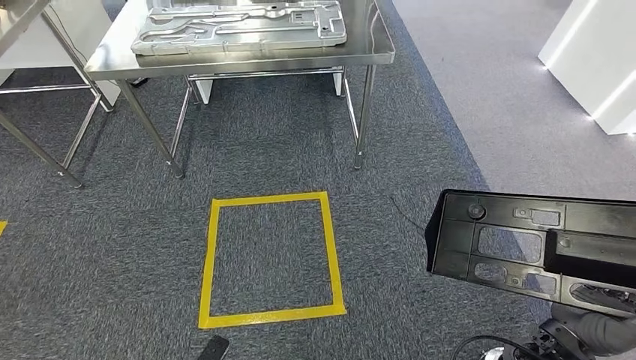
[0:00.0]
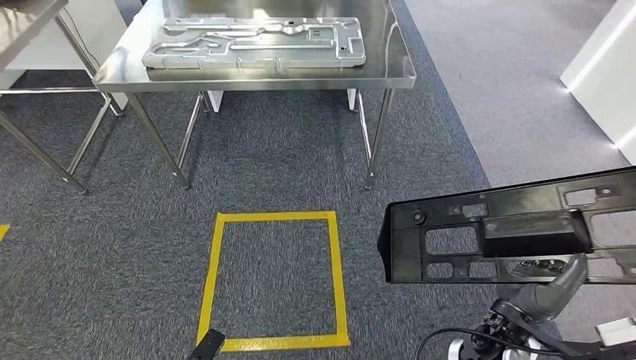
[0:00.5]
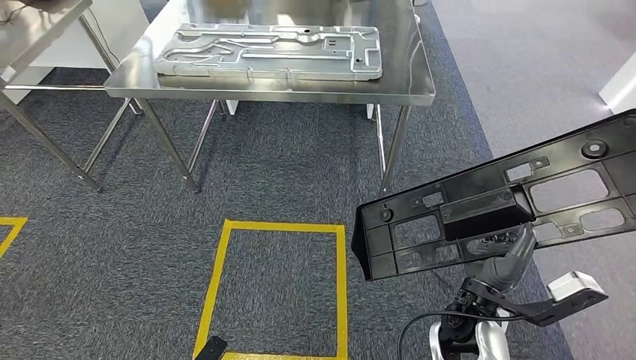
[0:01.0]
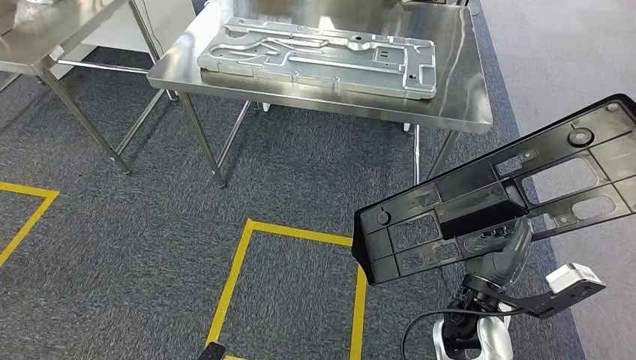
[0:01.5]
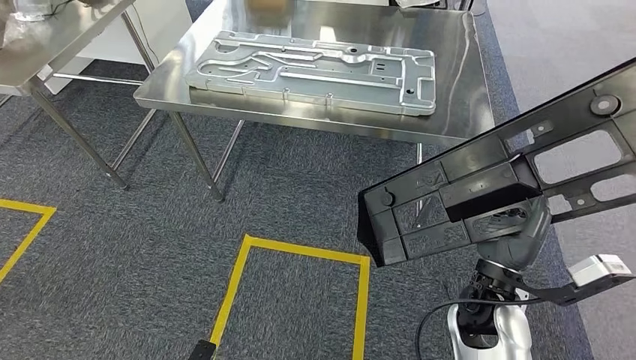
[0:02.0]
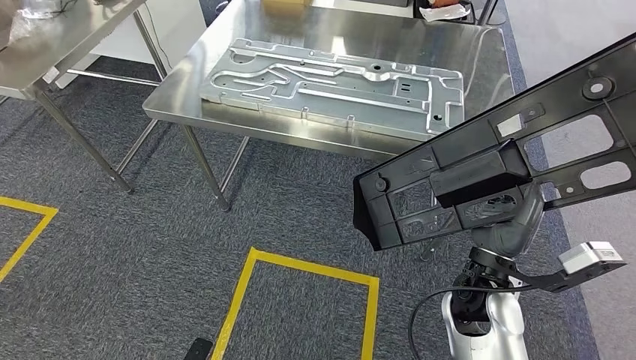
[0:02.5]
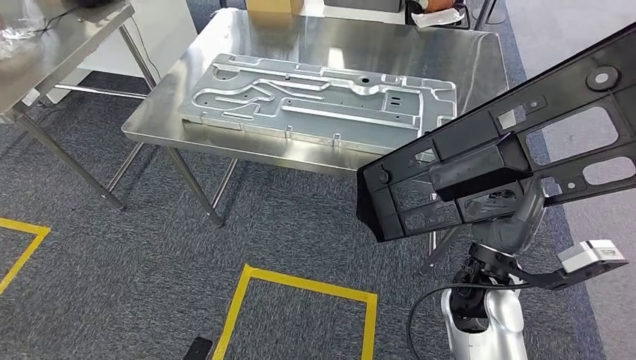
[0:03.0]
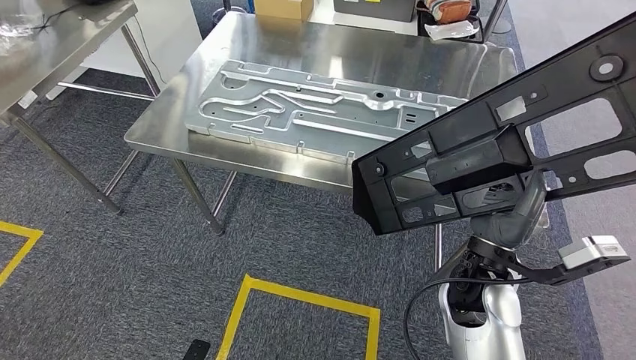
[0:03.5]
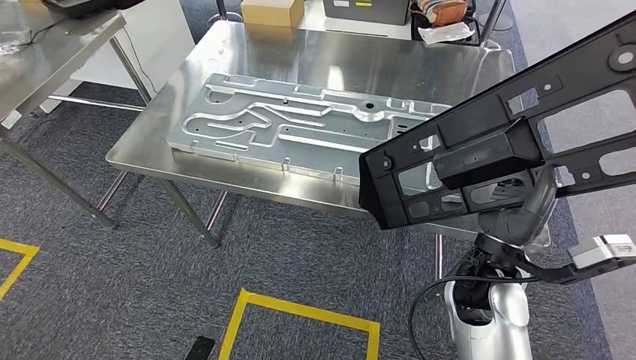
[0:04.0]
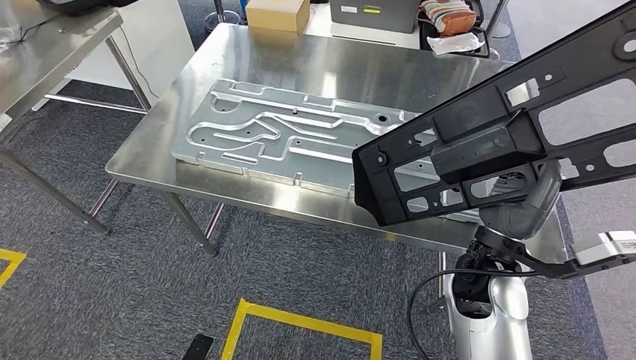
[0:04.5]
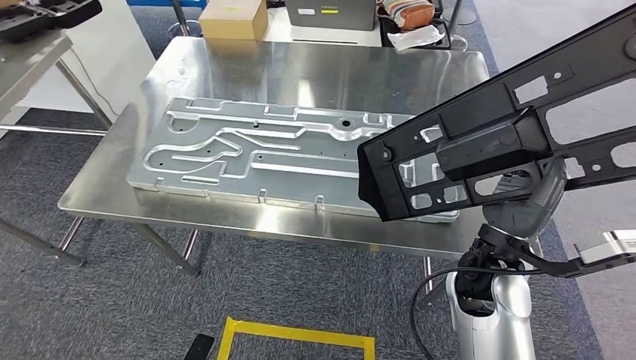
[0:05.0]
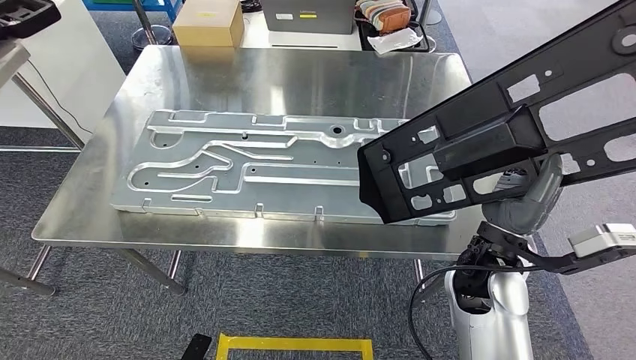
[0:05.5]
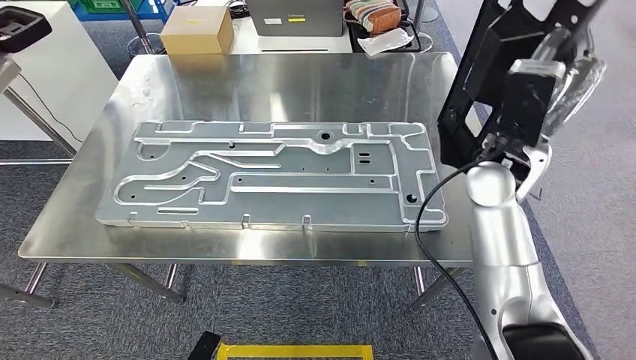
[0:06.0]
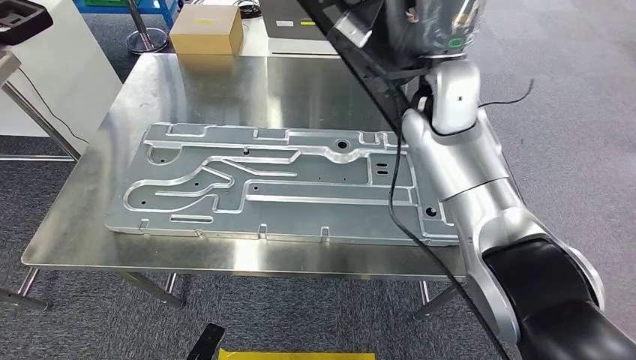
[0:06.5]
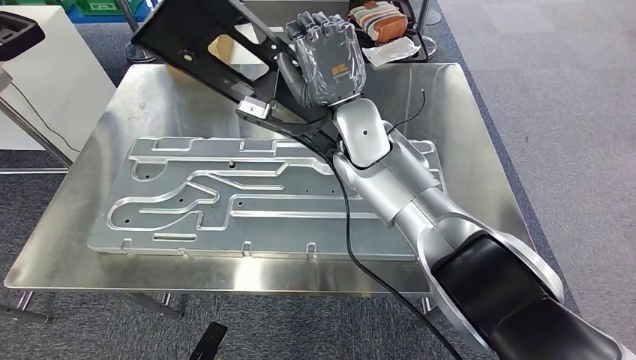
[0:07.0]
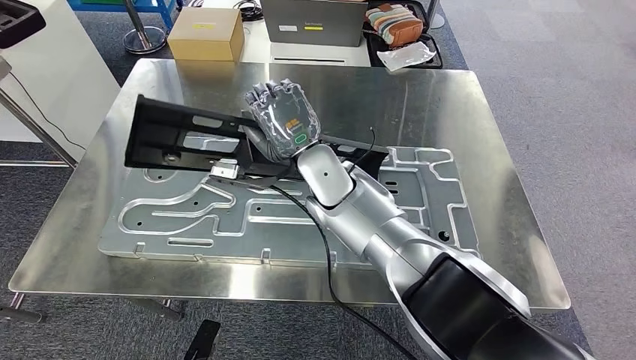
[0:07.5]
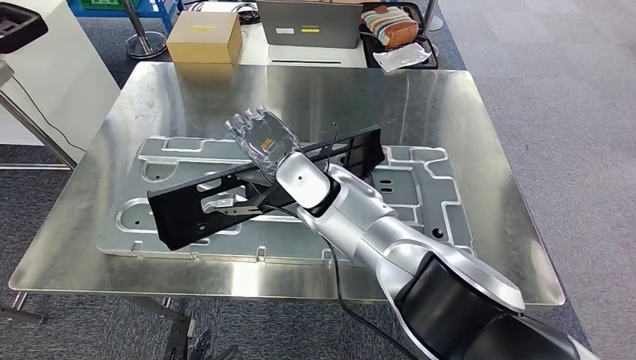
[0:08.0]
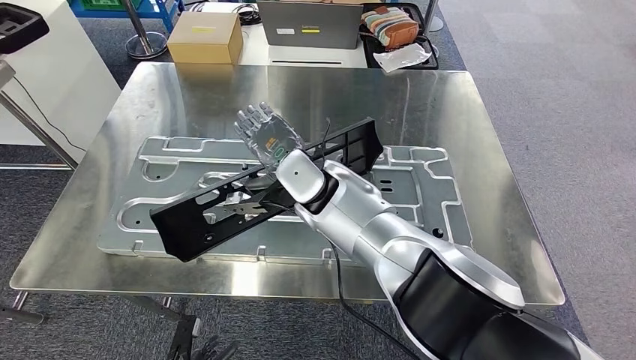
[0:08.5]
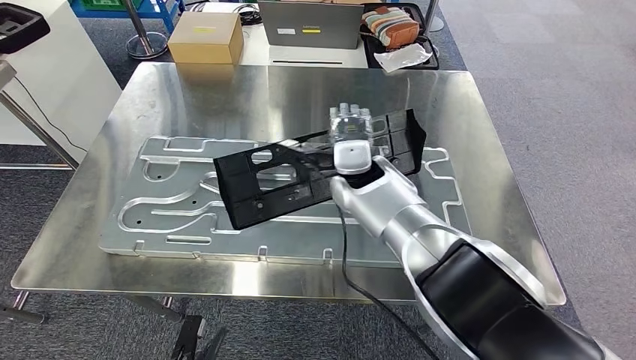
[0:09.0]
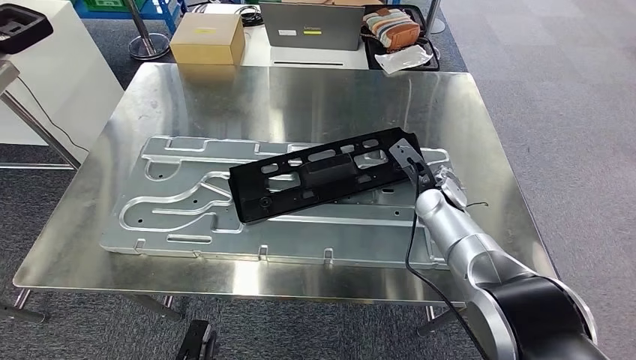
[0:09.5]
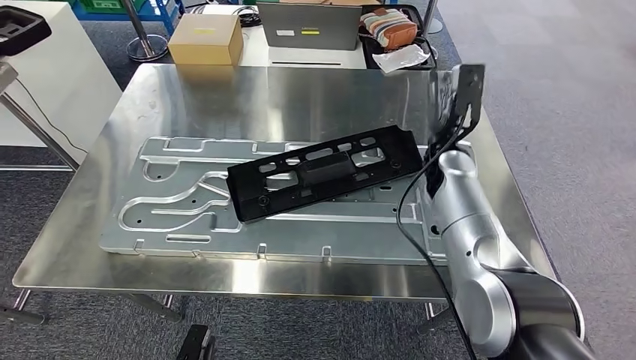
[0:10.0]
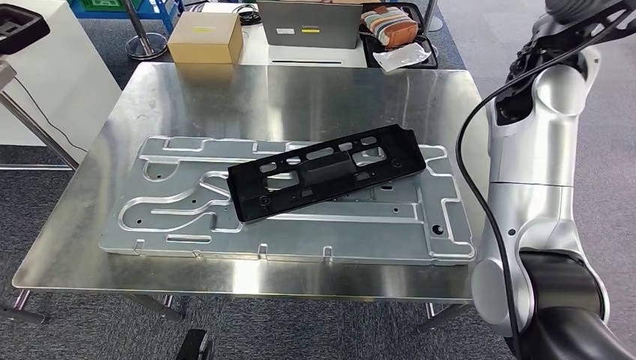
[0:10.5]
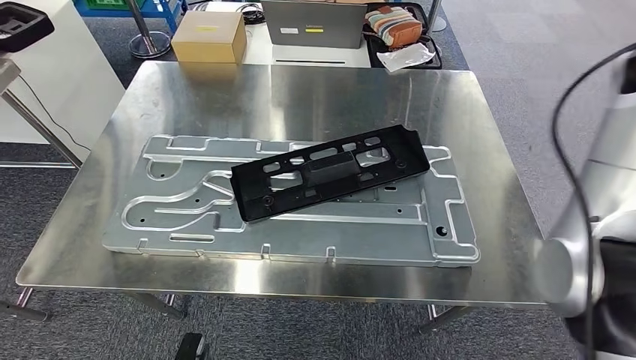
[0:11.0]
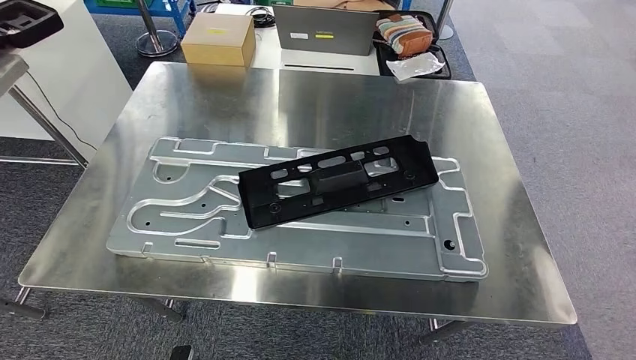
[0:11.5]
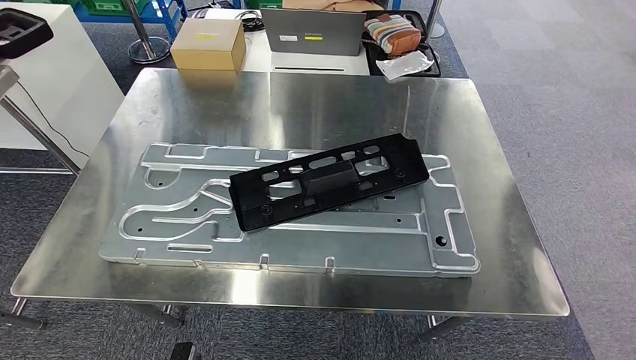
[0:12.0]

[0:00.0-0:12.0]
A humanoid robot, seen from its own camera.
Step, 0:00.0 to 0:04.0: Move the large material to the workbench.

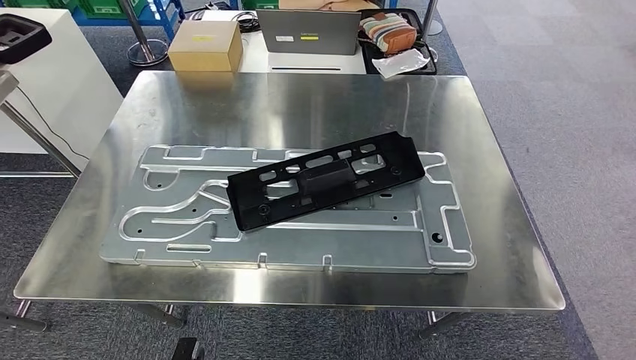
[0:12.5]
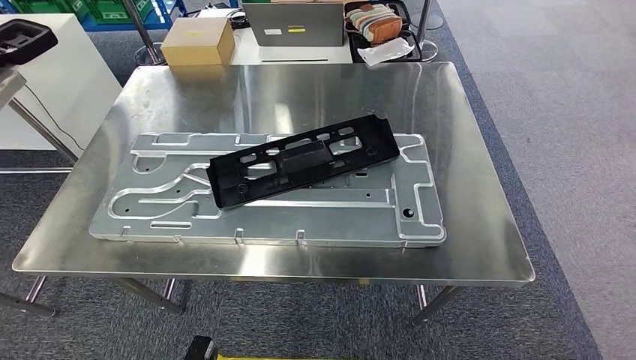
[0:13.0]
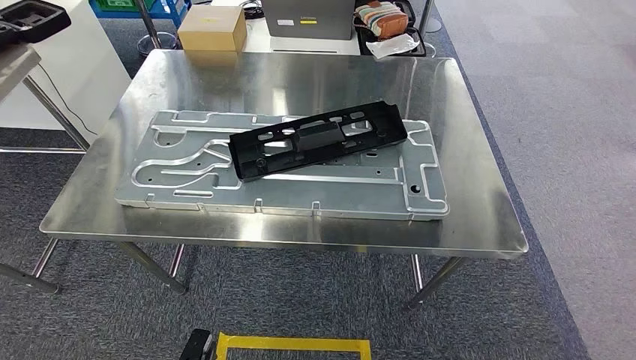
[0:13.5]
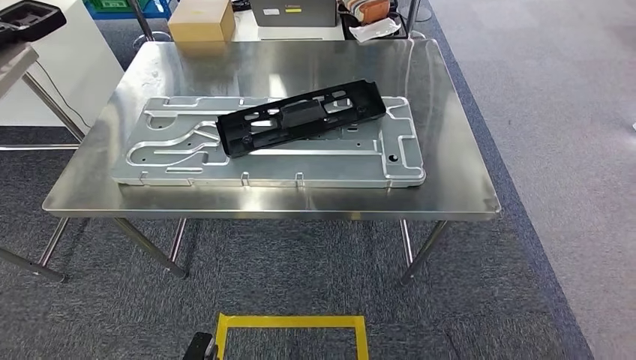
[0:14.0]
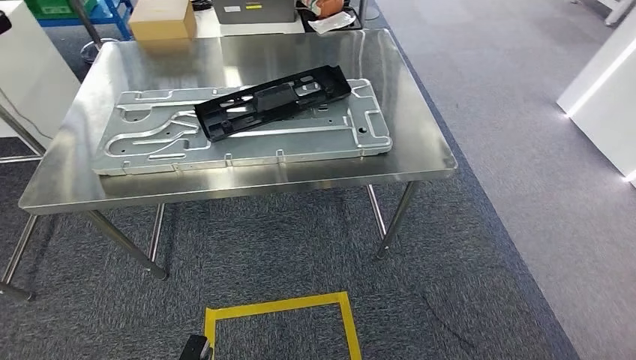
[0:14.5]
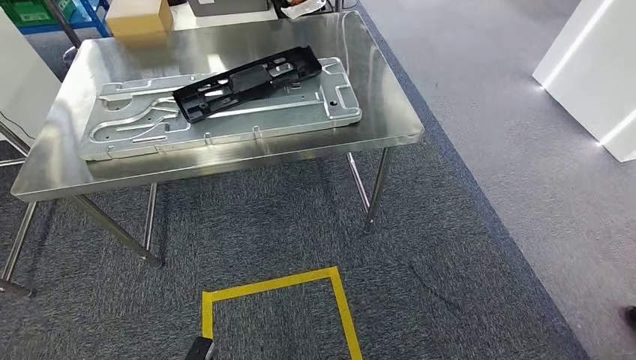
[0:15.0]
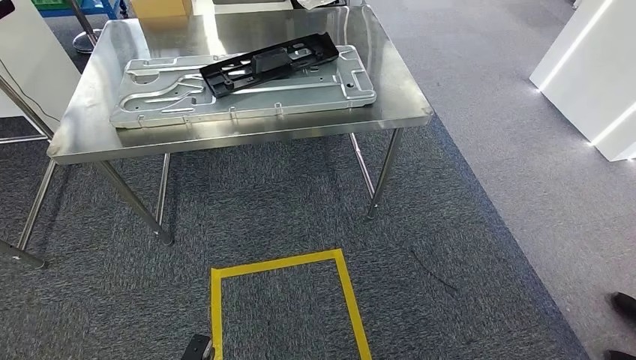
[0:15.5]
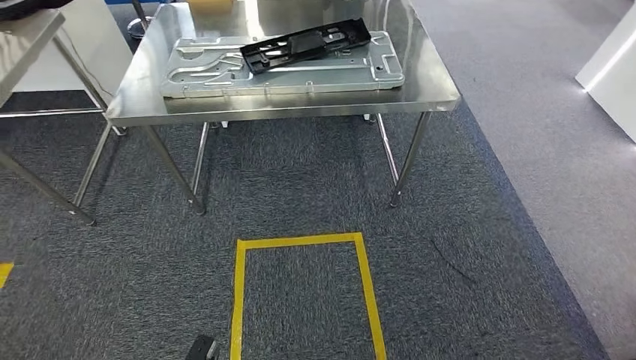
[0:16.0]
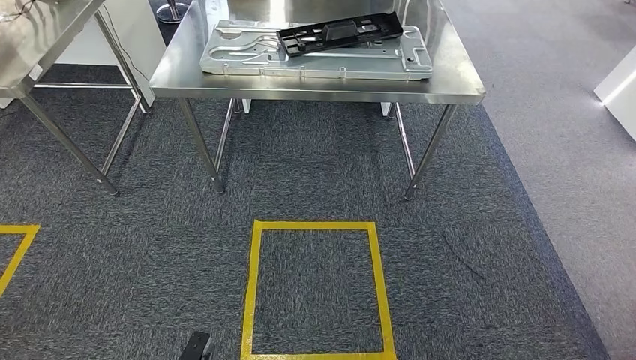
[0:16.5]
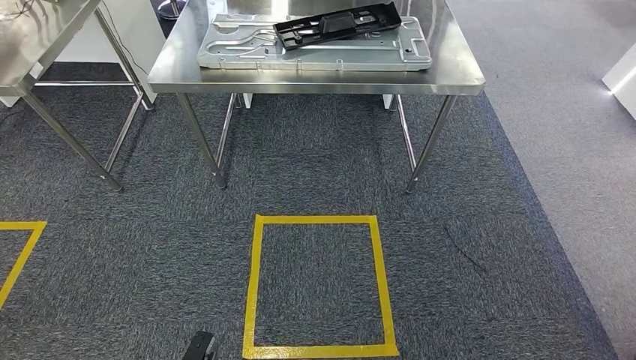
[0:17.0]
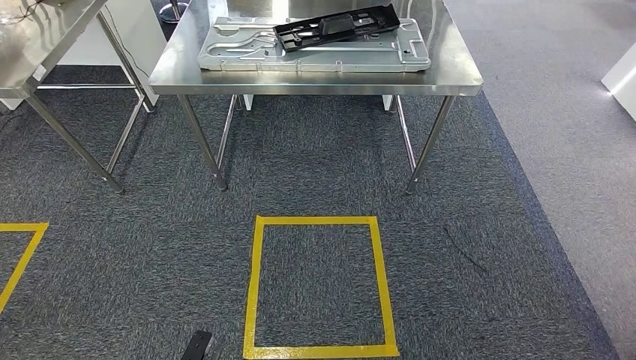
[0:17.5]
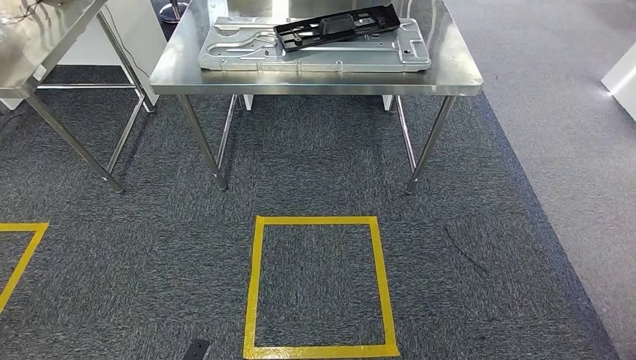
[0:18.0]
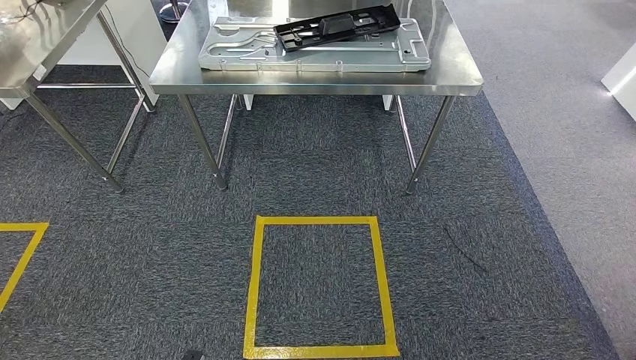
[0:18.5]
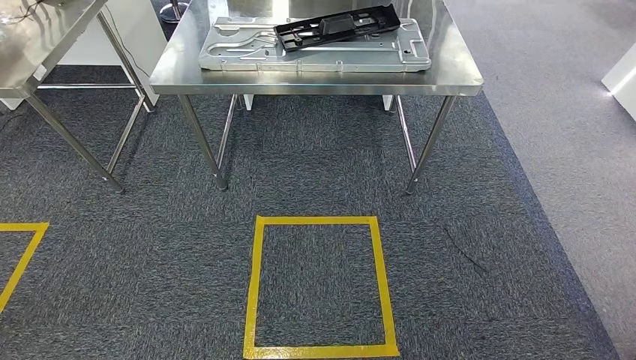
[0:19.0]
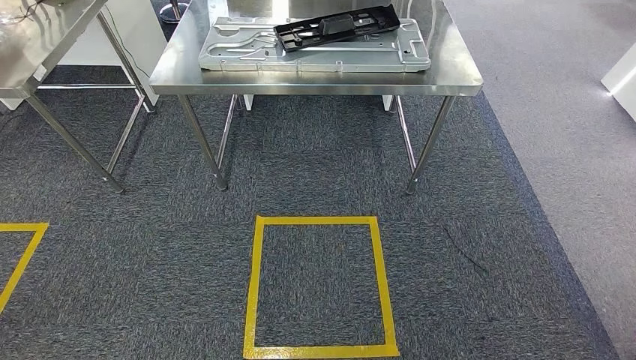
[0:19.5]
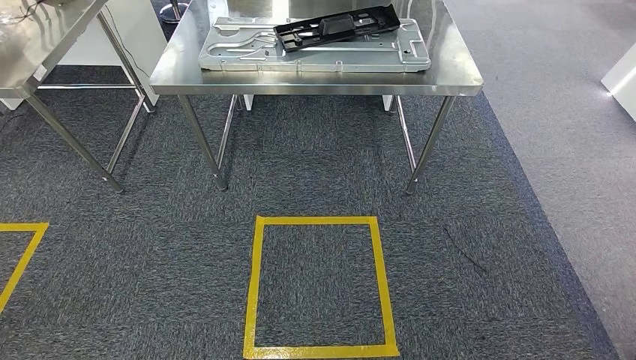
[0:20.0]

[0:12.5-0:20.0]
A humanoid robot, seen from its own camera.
Step, 0:12.5 to 0:14.5: Insert the large material into the corresponding slot on the workbench.
Step, 0:16.0 to 0:20.0: Move to the initial position of the shelf.
0:16.5 to 0:18.0: There are only small adjustments of the hands.
